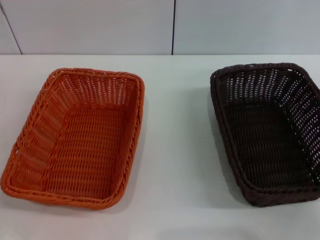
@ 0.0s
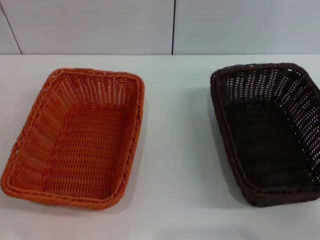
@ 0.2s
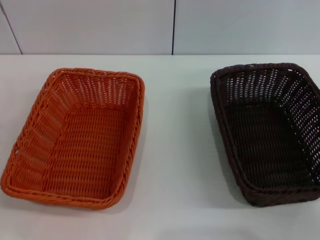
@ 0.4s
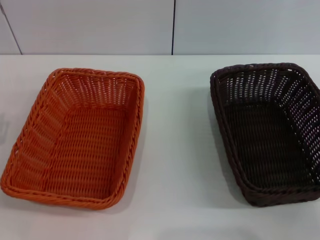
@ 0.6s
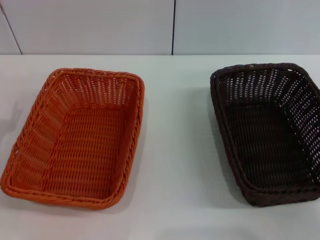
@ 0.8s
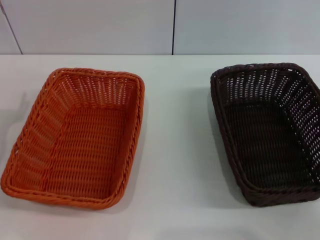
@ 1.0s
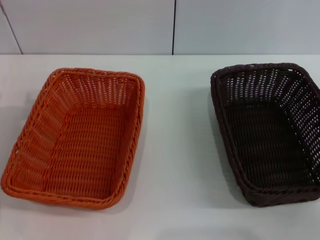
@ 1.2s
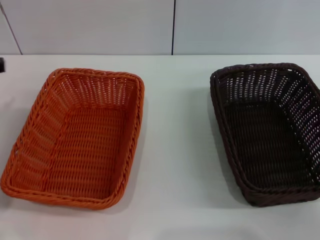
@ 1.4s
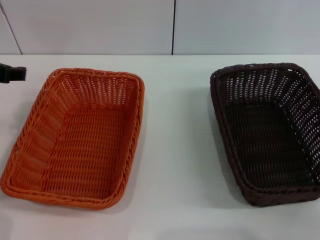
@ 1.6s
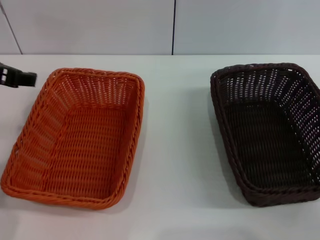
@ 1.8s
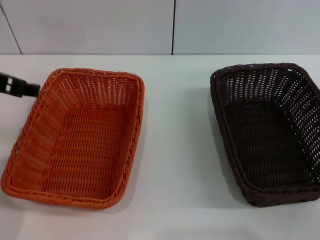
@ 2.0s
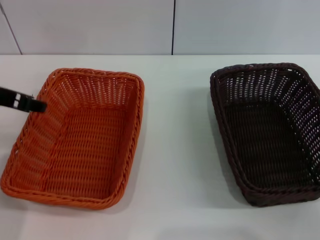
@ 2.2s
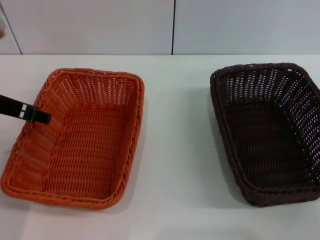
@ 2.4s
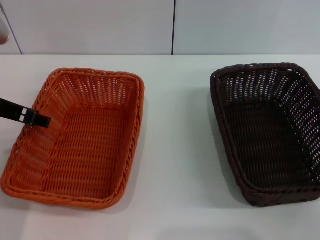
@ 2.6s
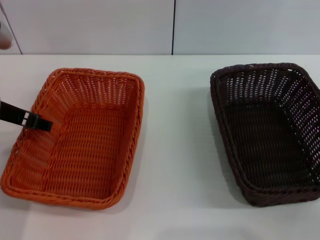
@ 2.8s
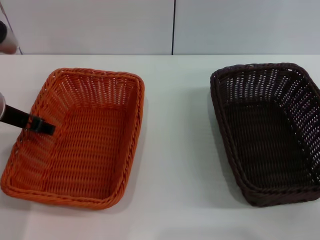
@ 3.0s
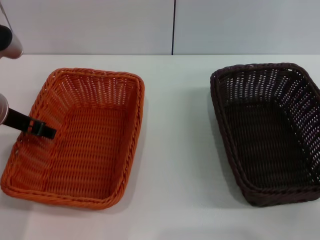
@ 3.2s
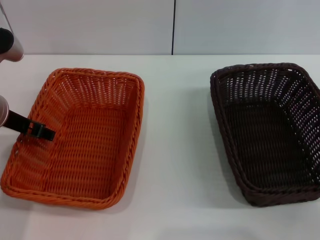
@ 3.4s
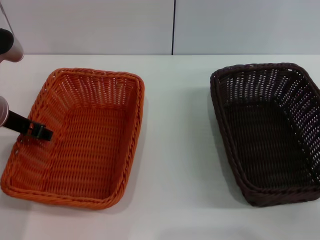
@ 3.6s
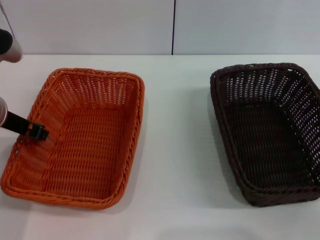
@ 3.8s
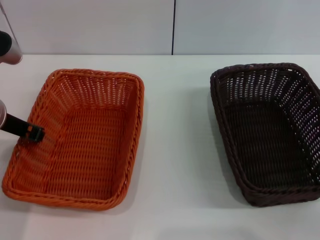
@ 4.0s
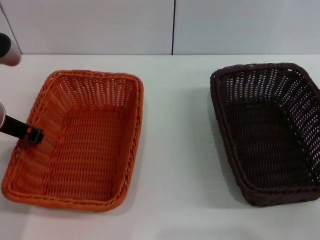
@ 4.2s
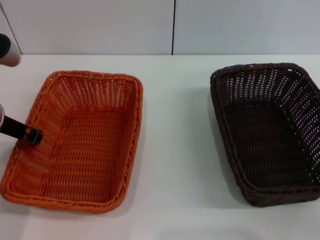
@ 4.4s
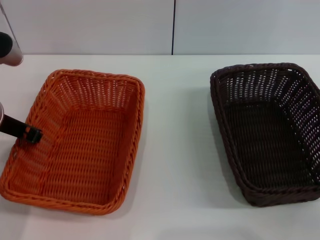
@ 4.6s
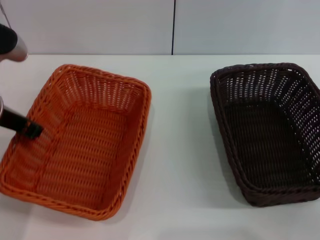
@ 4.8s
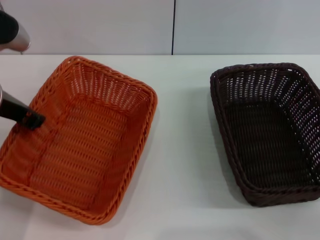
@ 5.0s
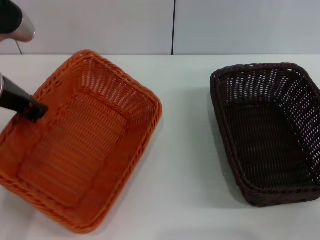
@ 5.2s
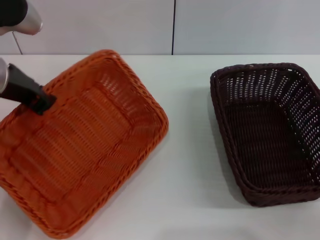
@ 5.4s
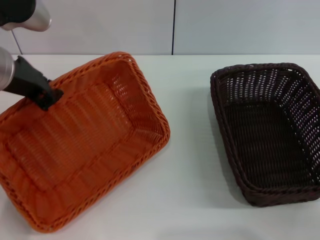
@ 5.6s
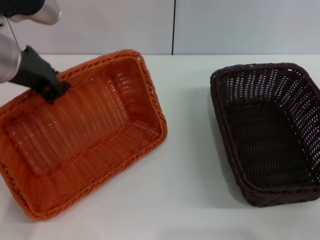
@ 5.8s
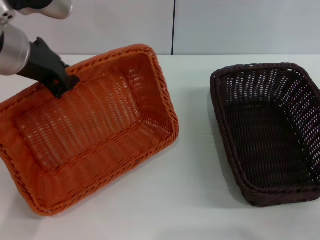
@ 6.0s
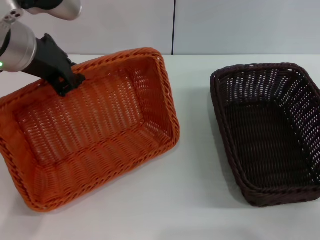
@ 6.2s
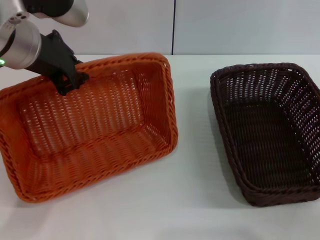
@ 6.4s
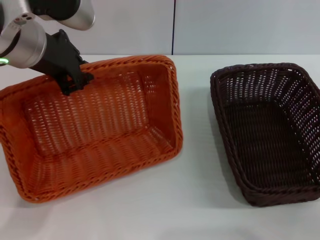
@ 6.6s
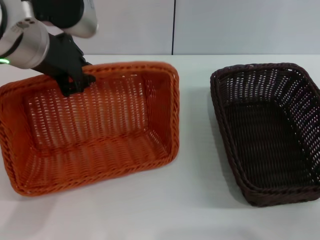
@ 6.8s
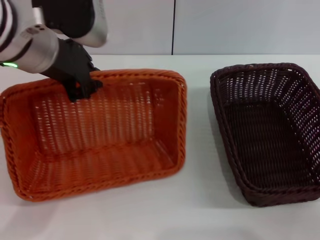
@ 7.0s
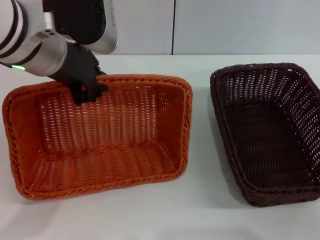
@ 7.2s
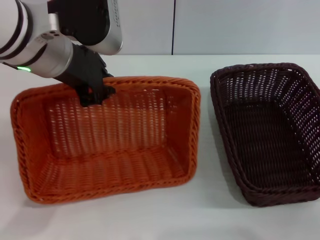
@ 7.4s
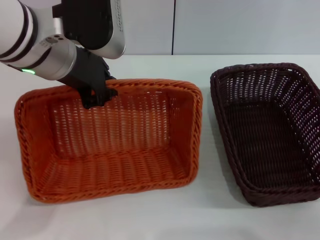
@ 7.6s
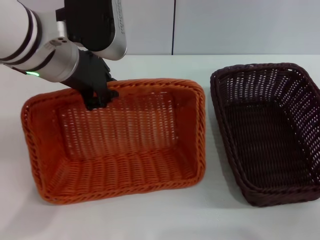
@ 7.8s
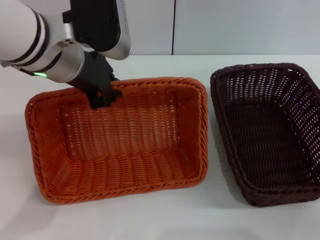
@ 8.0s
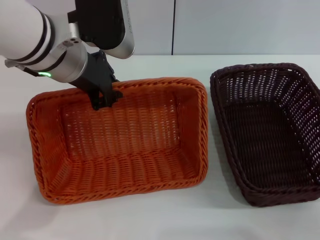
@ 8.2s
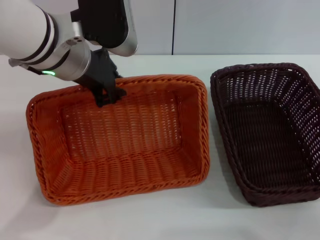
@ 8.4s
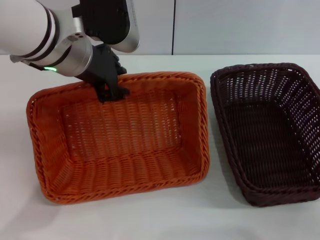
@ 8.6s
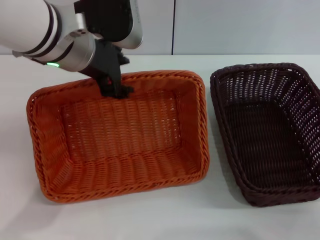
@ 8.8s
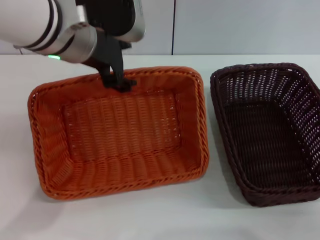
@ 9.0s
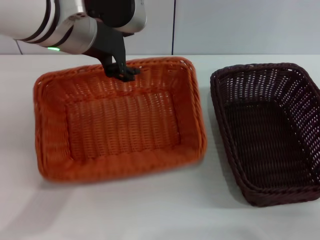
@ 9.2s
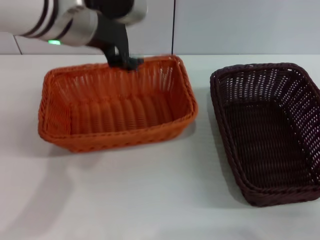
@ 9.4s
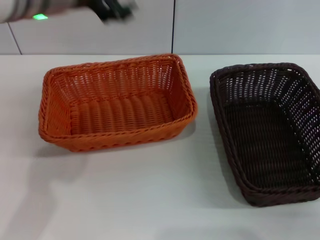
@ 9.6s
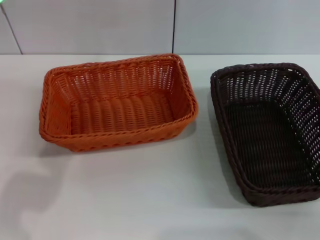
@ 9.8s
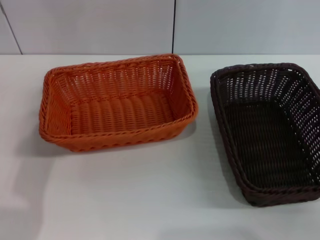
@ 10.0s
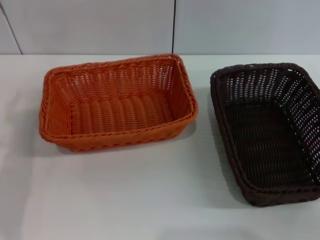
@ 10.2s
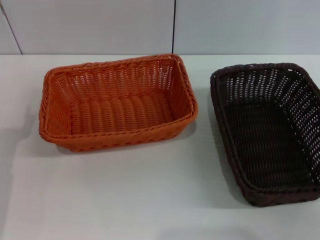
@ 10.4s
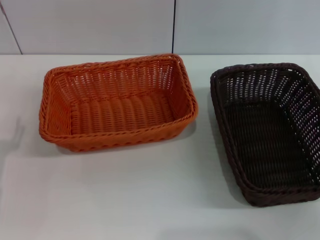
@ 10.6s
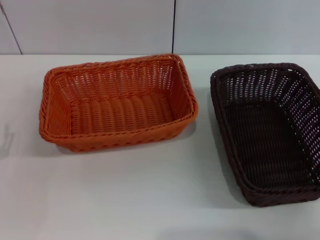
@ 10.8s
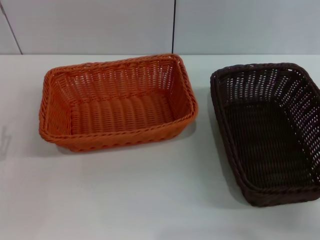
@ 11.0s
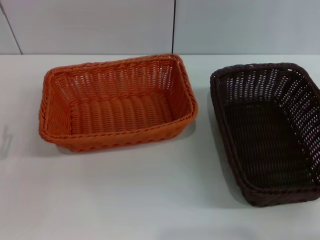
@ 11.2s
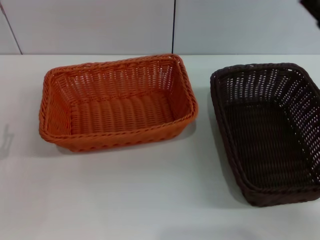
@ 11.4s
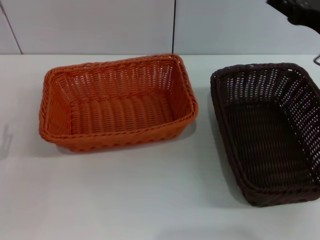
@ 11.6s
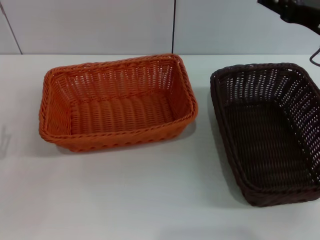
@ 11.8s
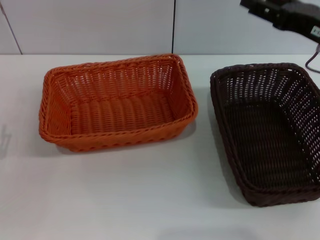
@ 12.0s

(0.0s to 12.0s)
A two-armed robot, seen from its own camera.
Step, 0.0s - 4.8s: Pick up the light basket with the left gripper.
Step, 5.0s - 9.2s: Place the light basket in the center of view with the left gripper.
0.0s - 1.6s: The left gripper travels upward and forward by approximately 20 cm.
1.6s - 3.0s: The left gripper moves downward, some 5 cm.
3.0s - 4.4s: The left gripper closes up.
4.4s - 6.0s: The left gripper is displaced upward and to the right by approximately 10 cm.
7.6s - 9.0s: The left gripper opens its fingers.
9.0s - 10.4s: The left gripper travels to the left, downward and backward by some 25 cm.
10.4s - 12.0s: The right gripper shifts some 20 cm forward, upward and to the left.

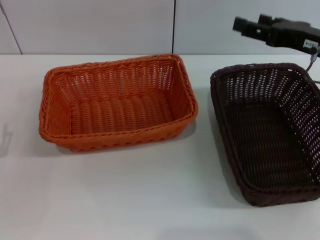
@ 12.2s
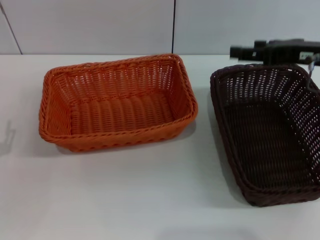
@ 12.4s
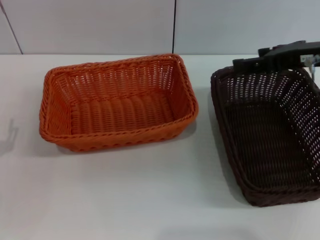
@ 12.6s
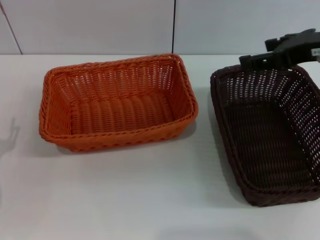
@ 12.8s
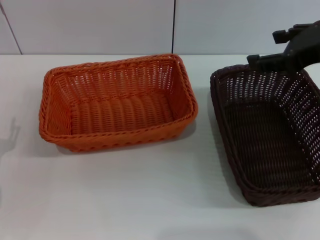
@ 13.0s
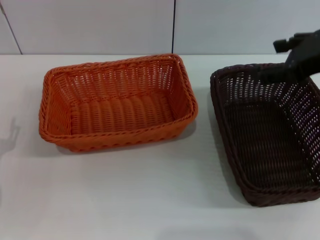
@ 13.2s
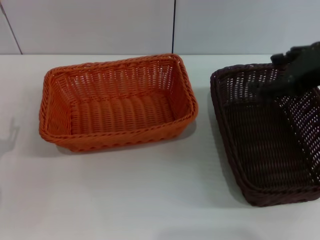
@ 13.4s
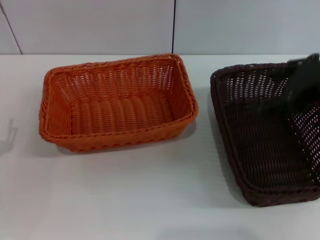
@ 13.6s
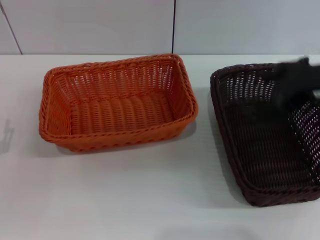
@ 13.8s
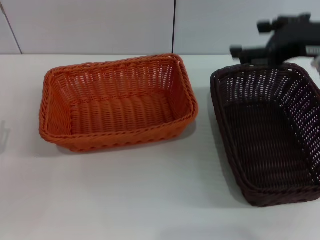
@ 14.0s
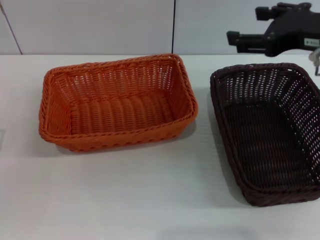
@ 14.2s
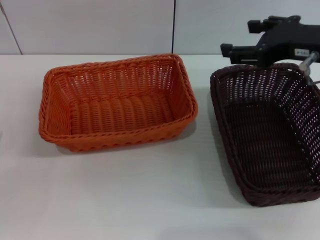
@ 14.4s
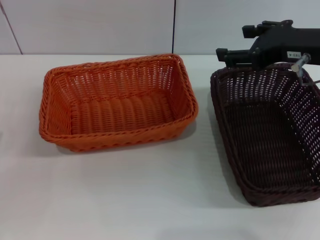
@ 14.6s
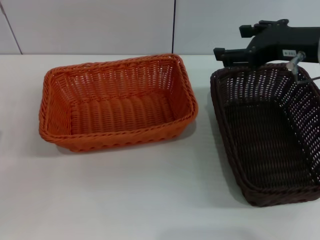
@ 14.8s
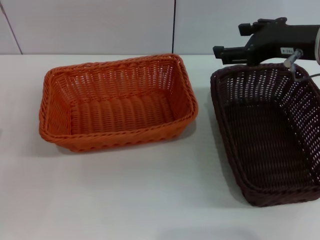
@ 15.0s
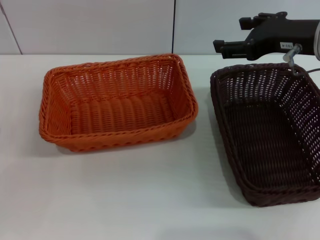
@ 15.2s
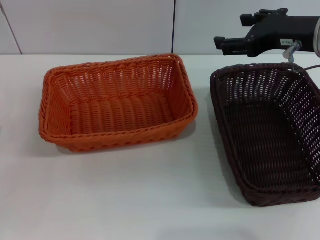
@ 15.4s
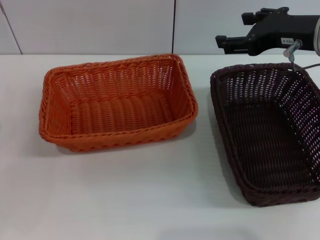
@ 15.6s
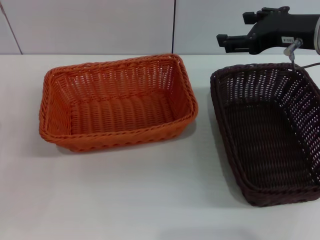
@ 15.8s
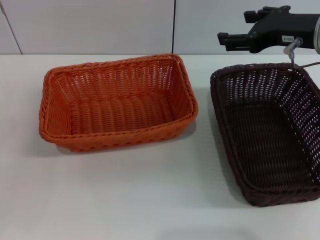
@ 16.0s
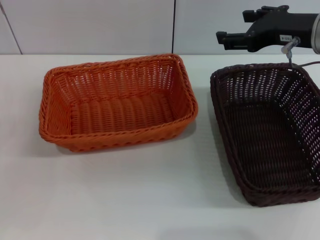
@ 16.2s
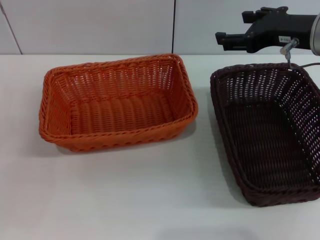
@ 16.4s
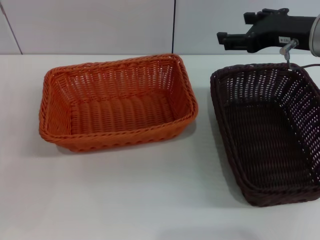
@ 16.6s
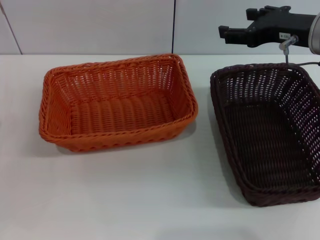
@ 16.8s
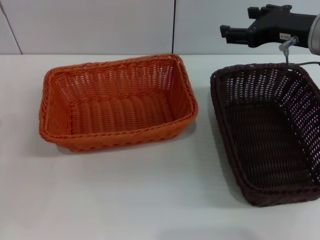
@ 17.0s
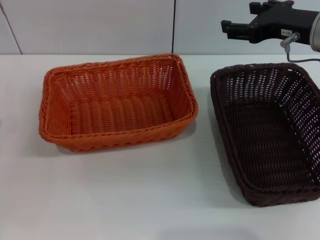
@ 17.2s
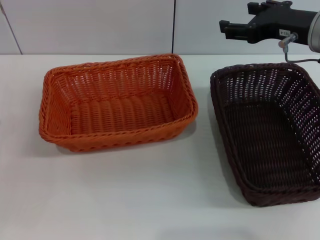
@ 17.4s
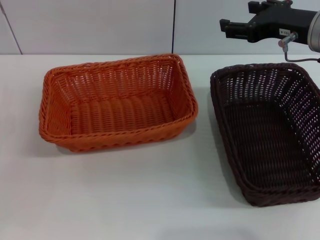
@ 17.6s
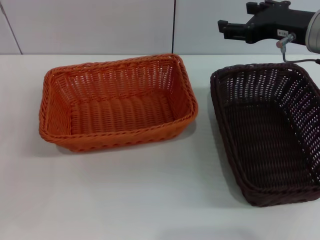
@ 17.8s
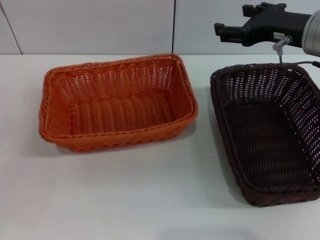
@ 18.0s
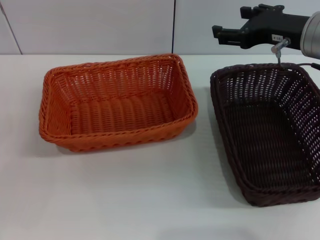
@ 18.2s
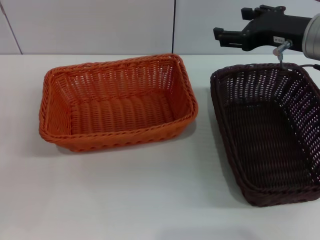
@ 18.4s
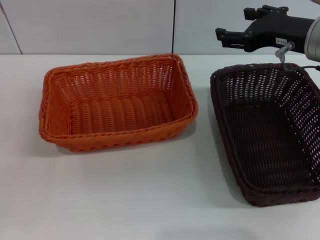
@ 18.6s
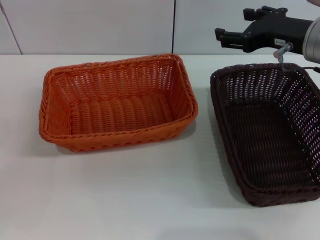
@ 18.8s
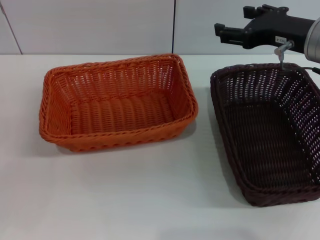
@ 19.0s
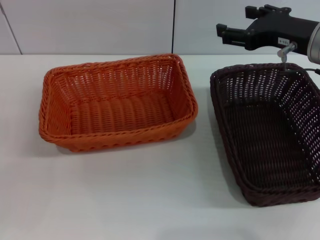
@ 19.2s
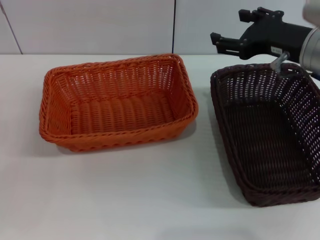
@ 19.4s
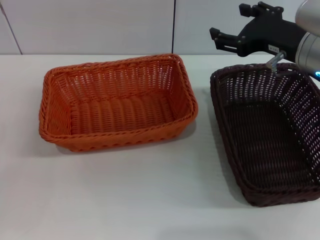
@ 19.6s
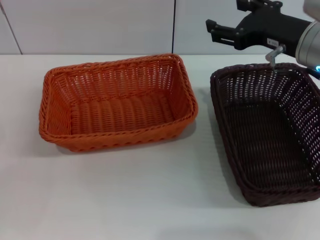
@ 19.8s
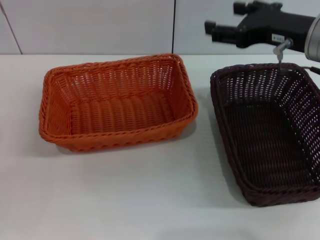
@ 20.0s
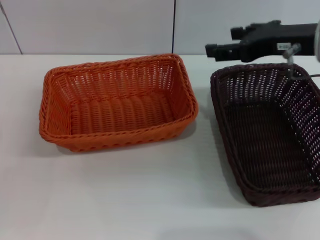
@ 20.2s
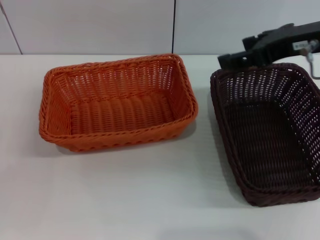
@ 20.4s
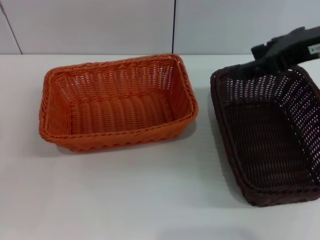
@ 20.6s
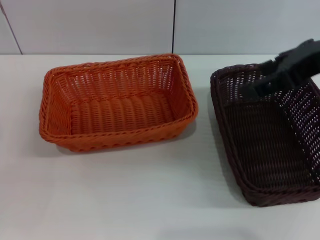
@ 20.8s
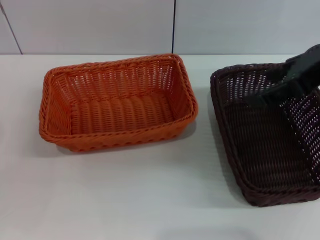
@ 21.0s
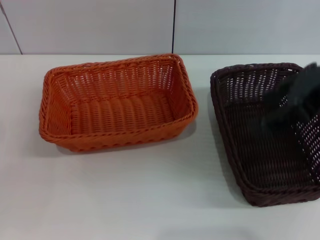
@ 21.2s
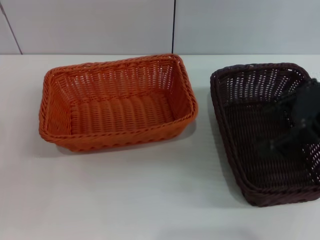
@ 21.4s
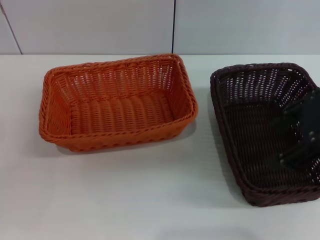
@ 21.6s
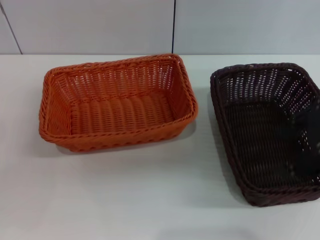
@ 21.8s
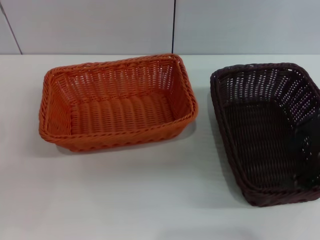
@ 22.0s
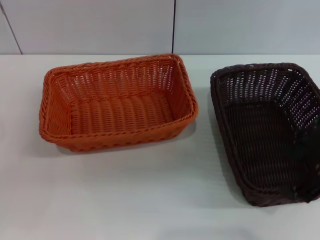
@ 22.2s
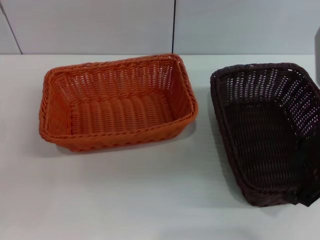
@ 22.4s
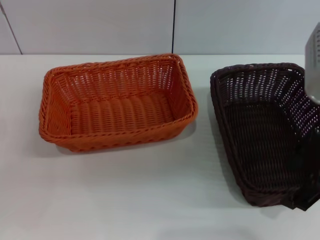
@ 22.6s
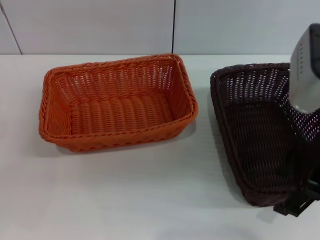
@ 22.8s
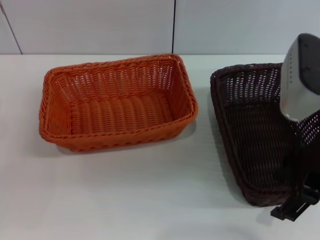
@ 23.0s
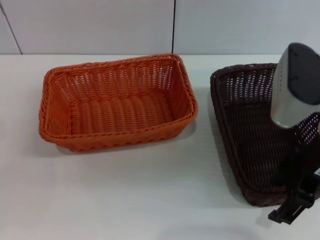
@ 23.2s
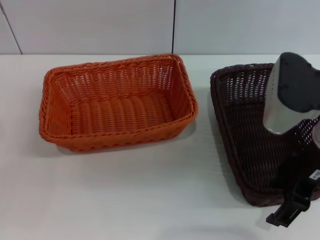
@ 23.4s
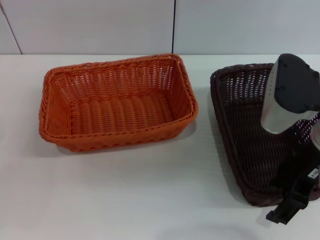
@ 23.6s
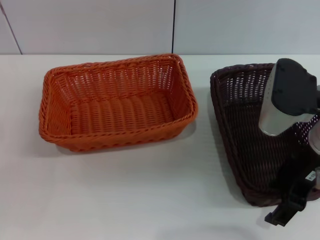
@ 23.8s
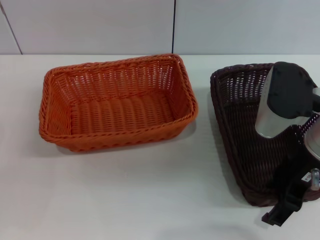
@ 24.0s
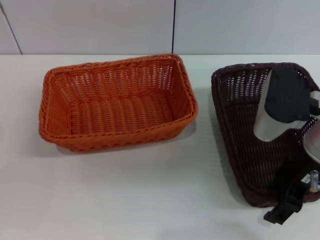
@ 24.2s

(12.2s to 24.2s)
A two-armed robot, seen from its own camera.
12.2s - 13.8s: The right gripper ends up roughly 5 cm from where it was.
13.8s - 15.2s: The right gripper moves forward, about 5 cm.
15.2s - 19.8s: The grippers move only a little.
19.8s - 21.2s: The right gripper goes roughly 10 cm upward.
21.2s - 22.6s: The right gripper ends up some 5 cm from where it was.
22.6s - 24.2s: The right gripper is displaced downward by roughly 10 cm.
